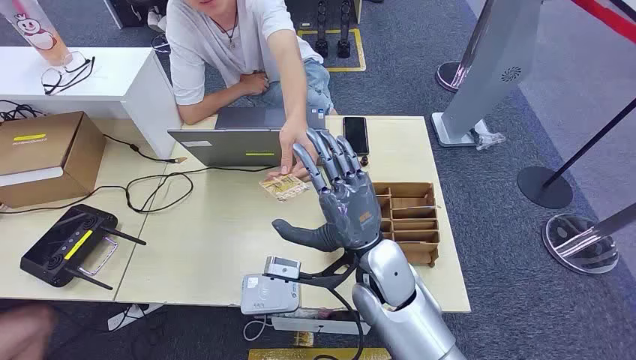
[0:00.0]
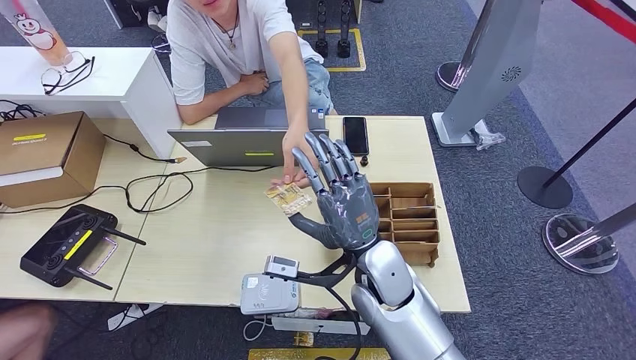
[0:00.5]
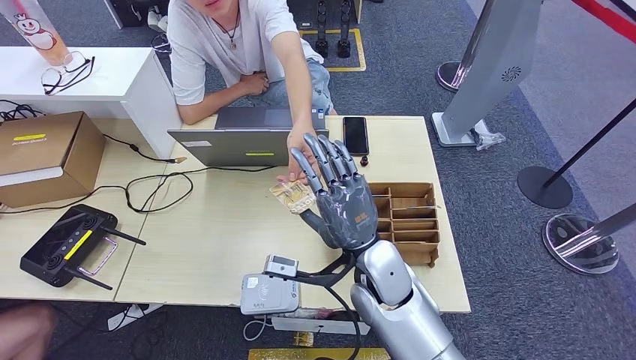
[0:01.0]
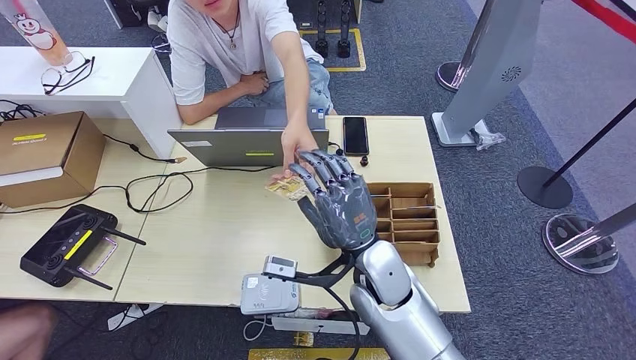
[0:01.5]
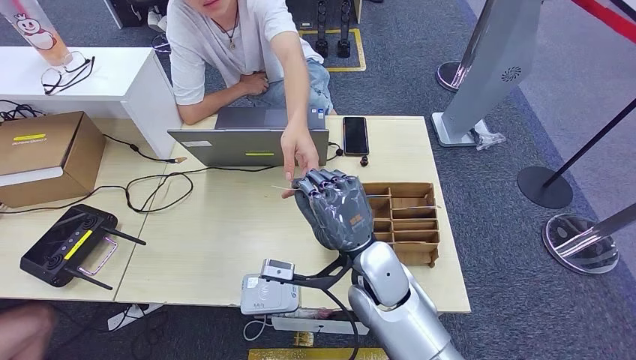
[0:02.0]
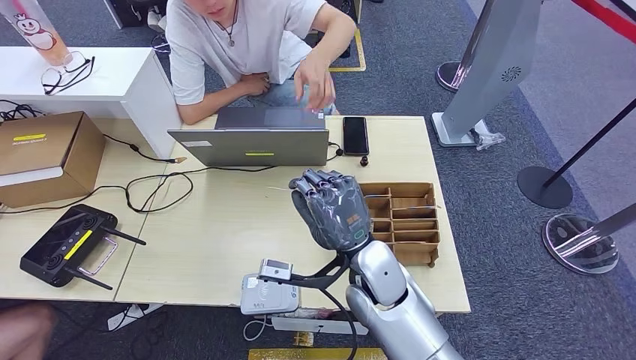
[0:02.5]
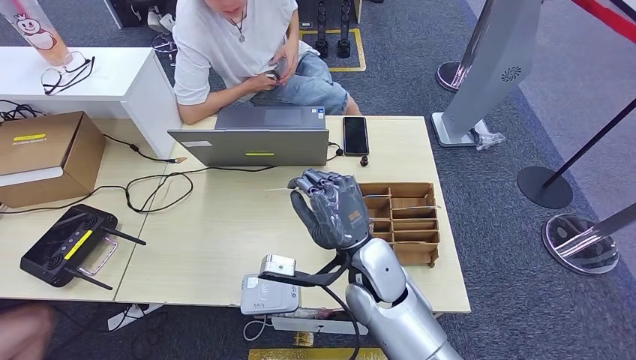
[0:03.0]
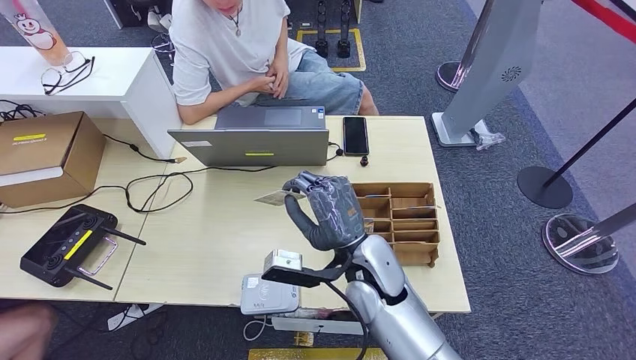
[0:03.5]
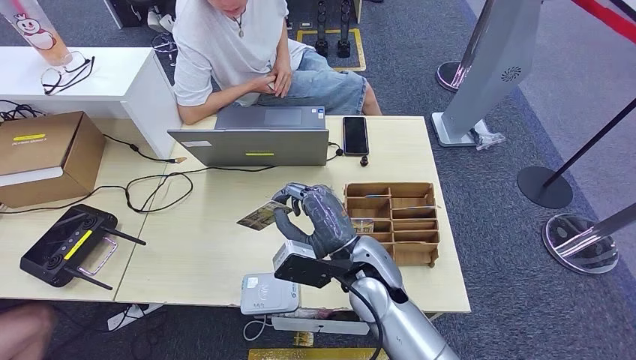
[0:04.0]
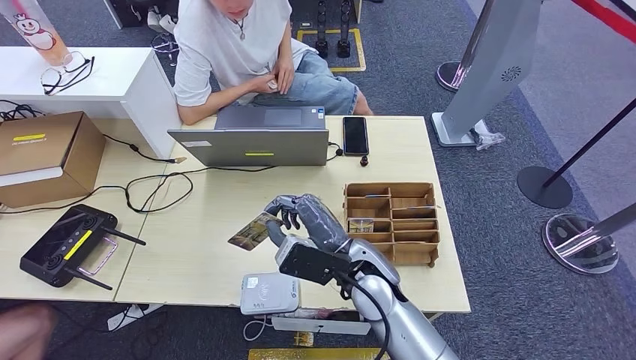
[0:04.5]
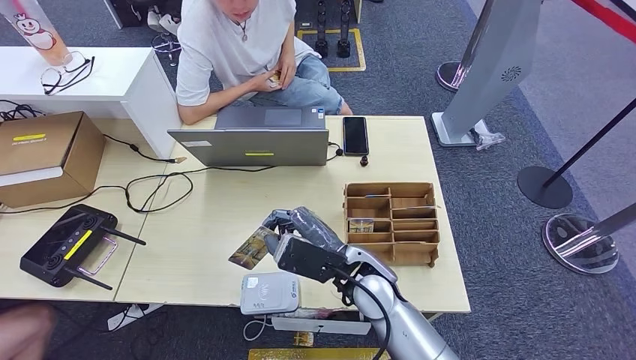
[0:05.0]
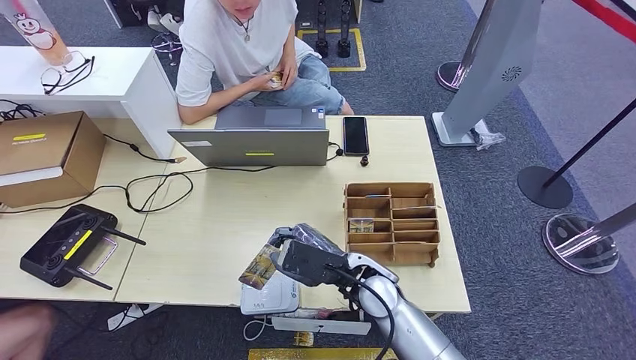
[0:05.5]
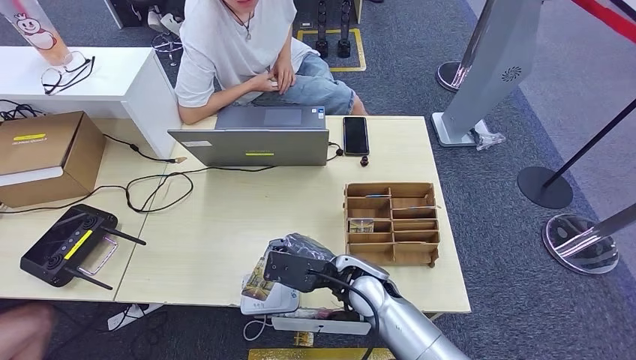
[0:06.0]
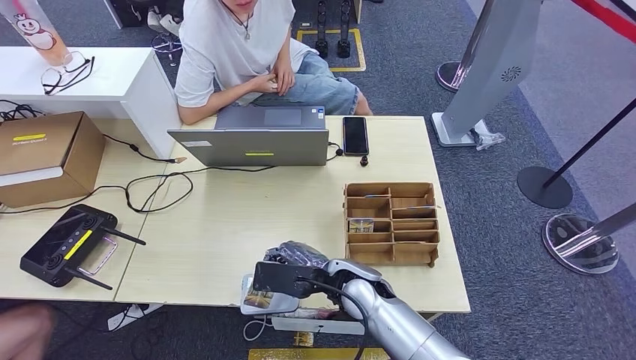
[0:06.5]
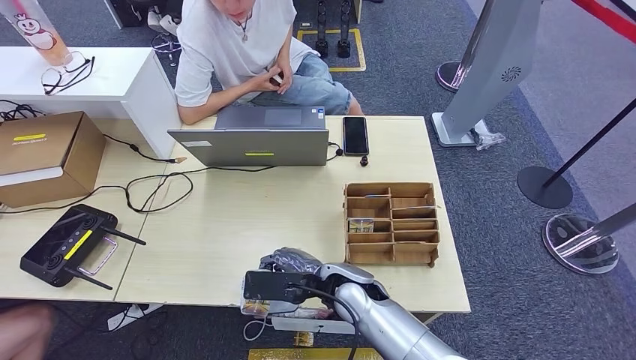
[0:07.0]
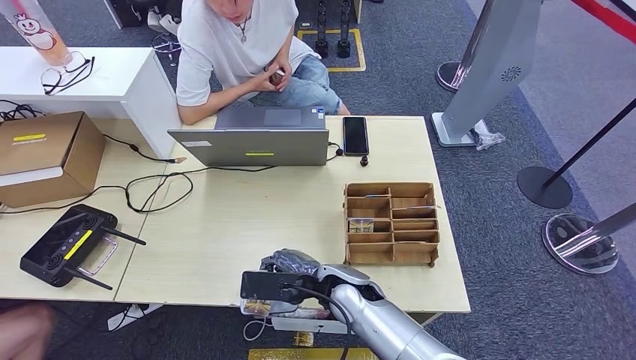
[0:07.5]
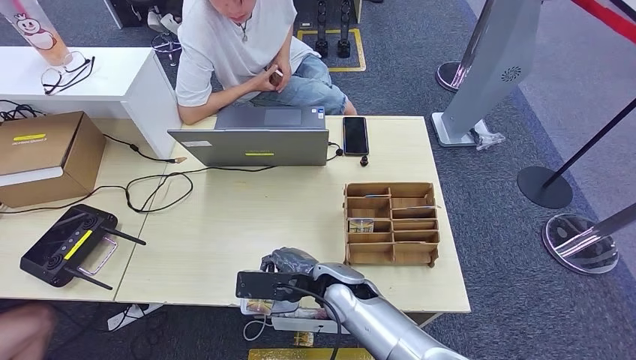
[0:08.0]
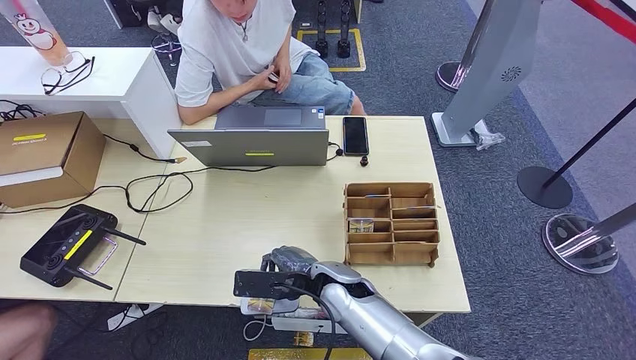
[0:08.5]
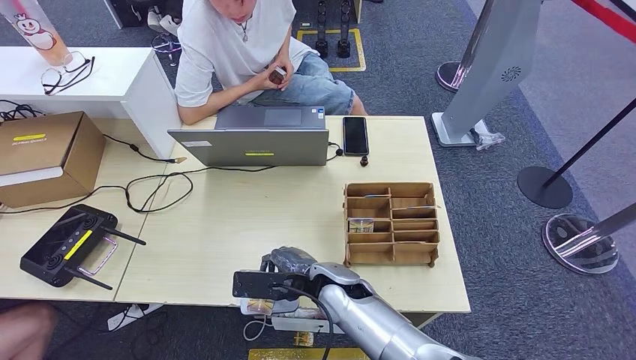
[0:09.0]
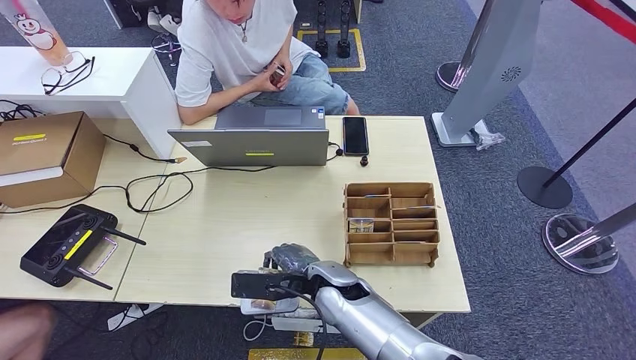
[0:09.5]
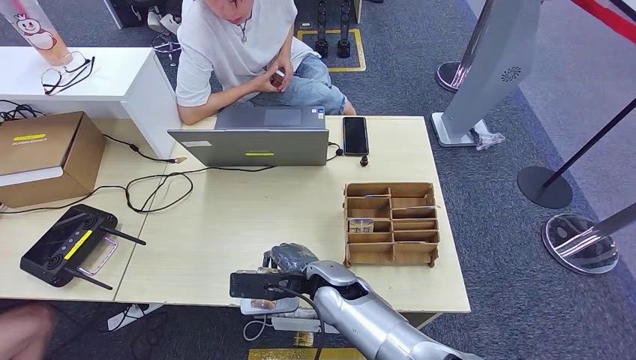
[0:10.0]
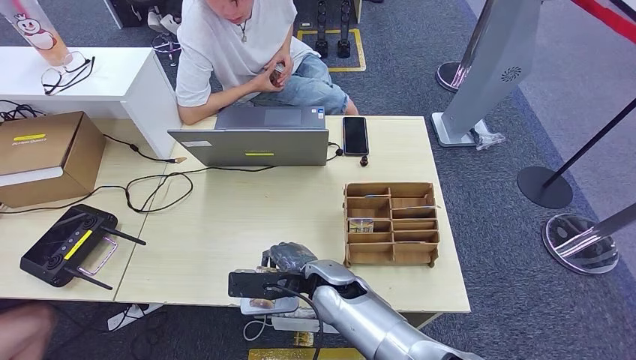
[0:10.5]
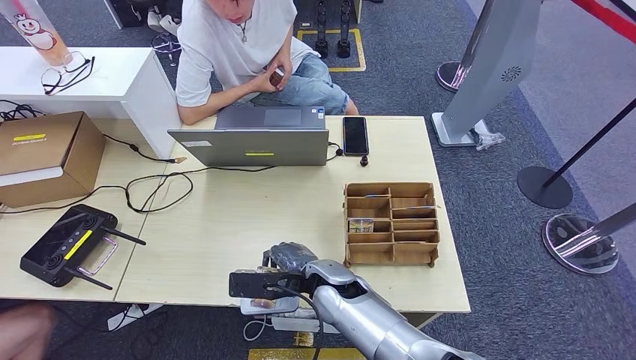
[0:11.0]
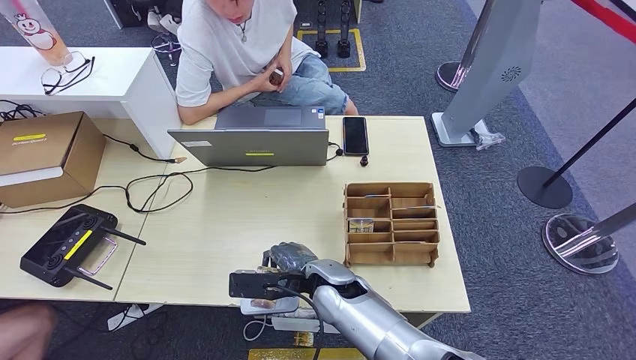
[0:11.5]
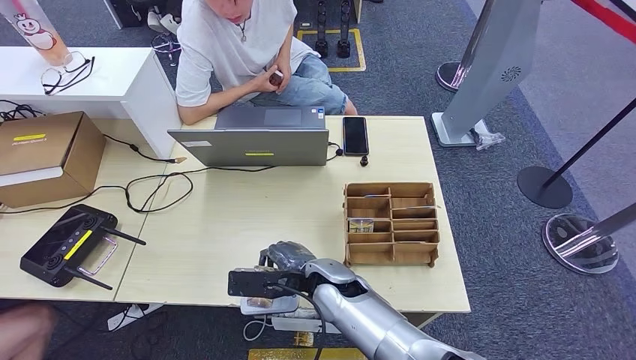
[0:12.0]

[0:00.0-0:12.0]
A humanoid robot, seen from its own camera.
Step, 0:00.0 to 0:02.5: Take the ID card from the person's hand.
Step, 0:03.0 to 0:09.0: Place the ID card on the card reader.
0:04.0 to 0:06.0: The right hand is displaced downward by some 5 cm.
0:06.0 to 0:08.0: The hands move only a little.
0:08.0 to 0:10.0: The hands move only a little.
0:10.0 to 0:12.0: Neither hand changes place.

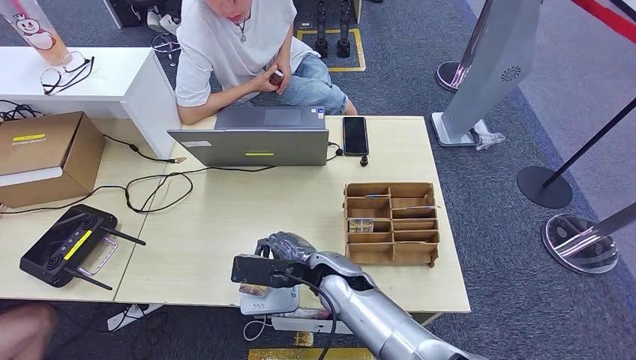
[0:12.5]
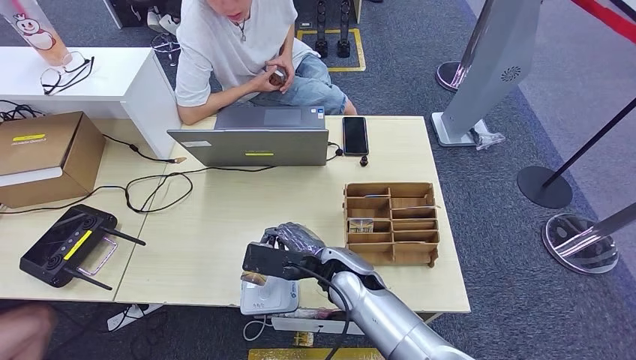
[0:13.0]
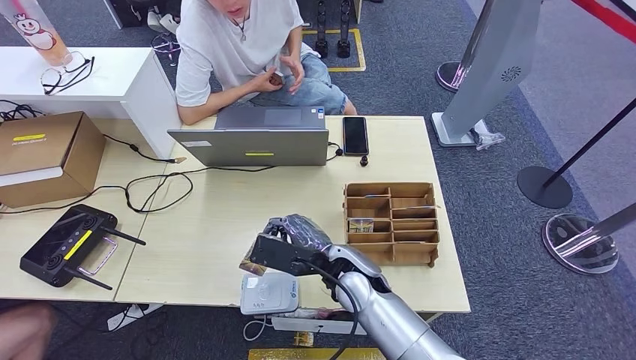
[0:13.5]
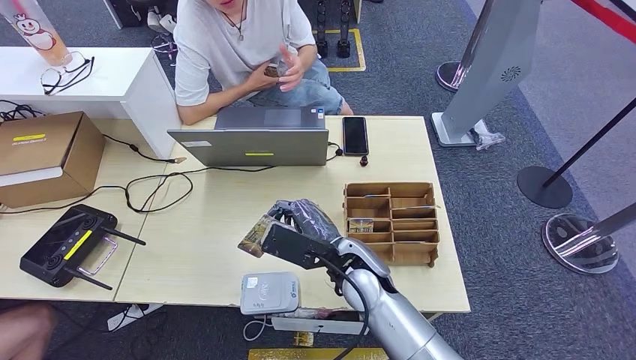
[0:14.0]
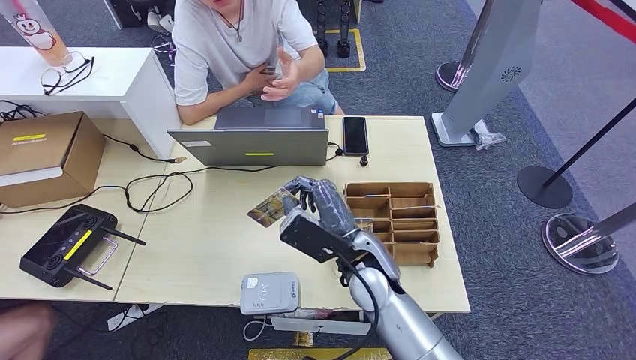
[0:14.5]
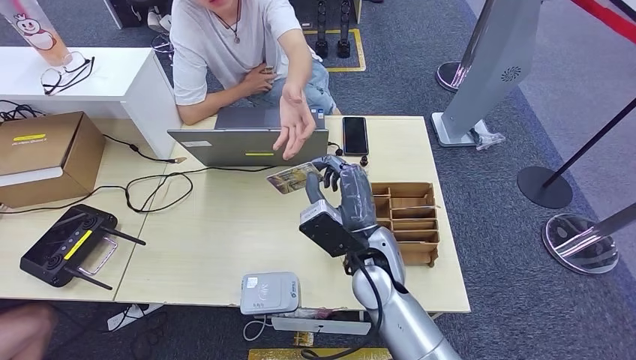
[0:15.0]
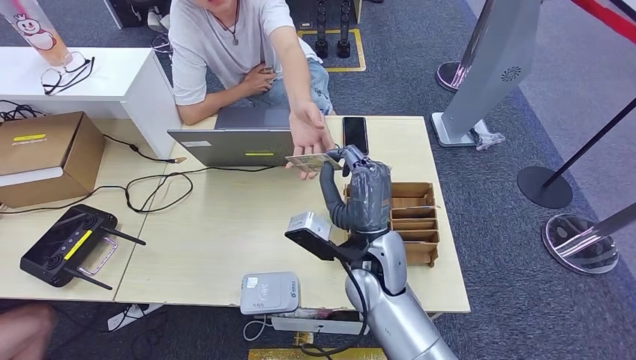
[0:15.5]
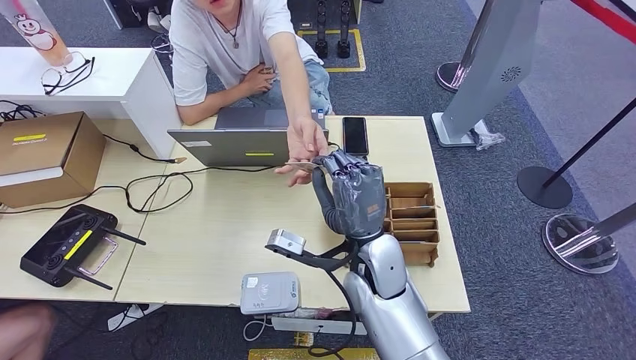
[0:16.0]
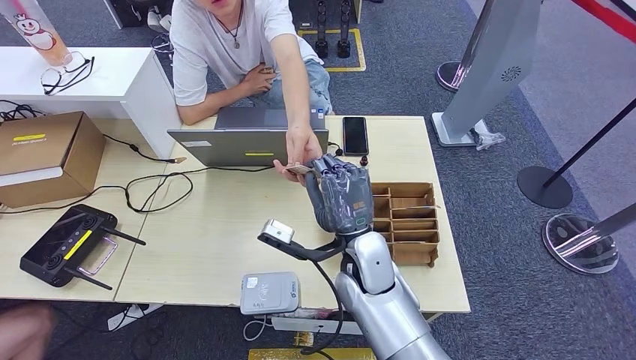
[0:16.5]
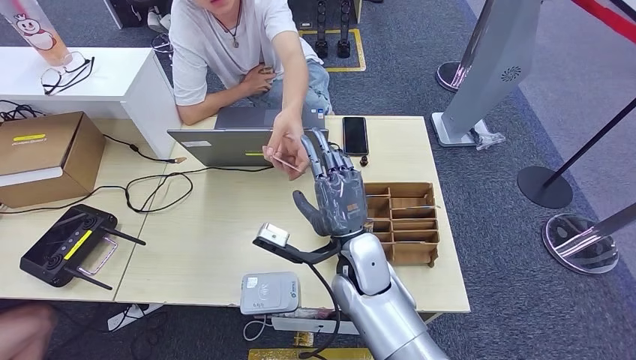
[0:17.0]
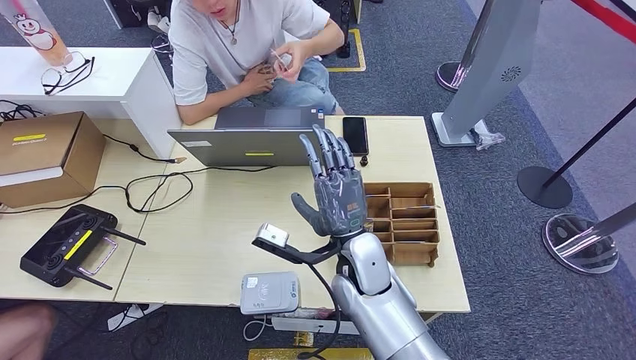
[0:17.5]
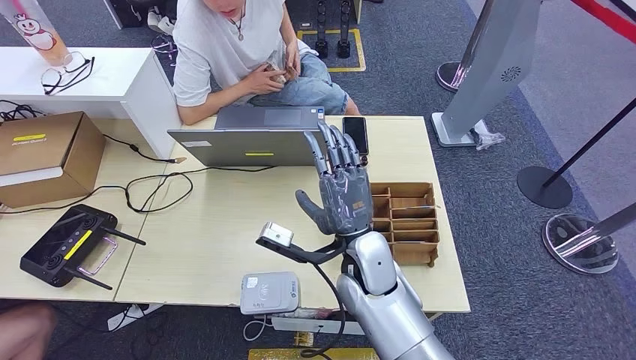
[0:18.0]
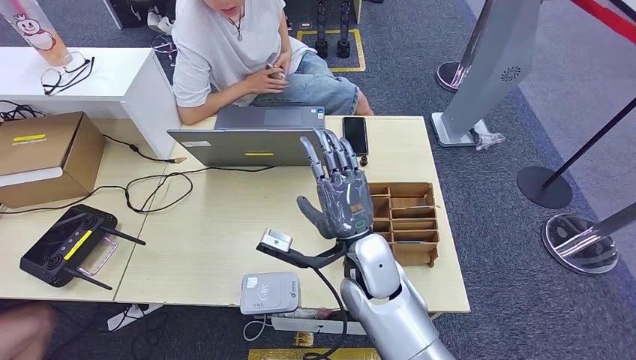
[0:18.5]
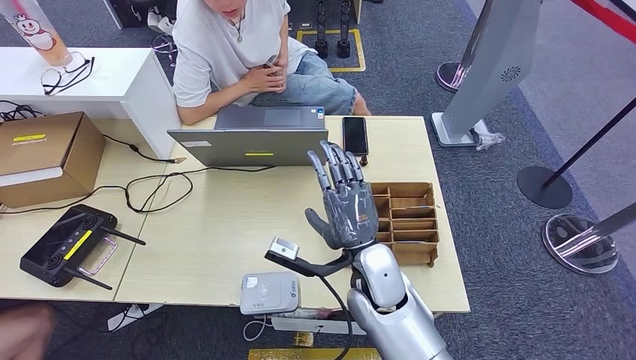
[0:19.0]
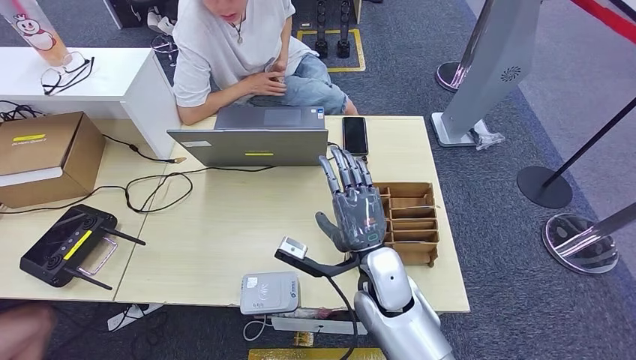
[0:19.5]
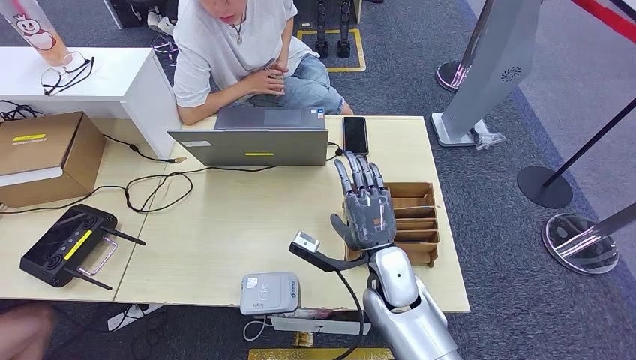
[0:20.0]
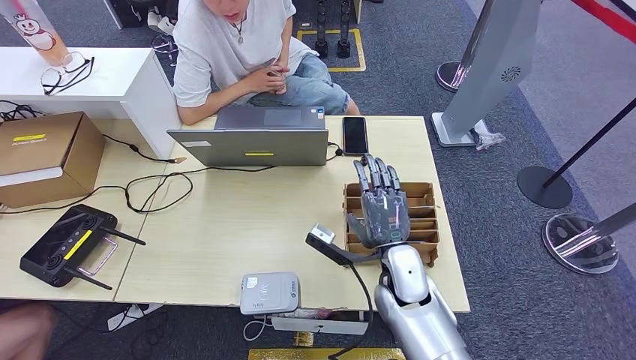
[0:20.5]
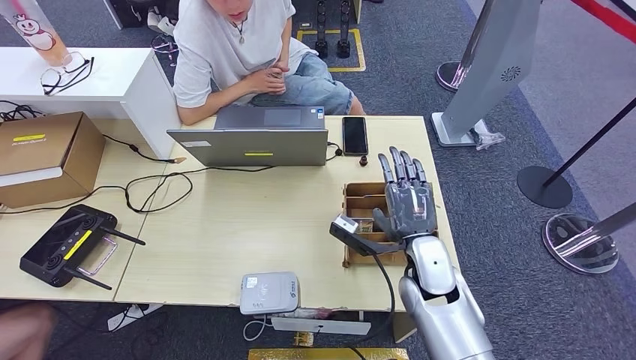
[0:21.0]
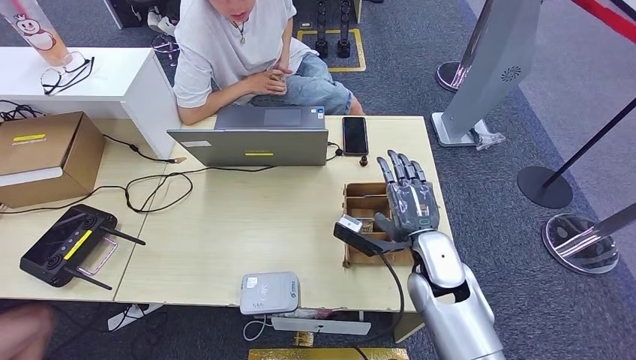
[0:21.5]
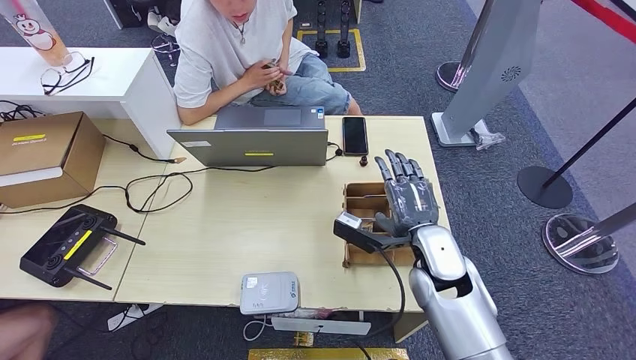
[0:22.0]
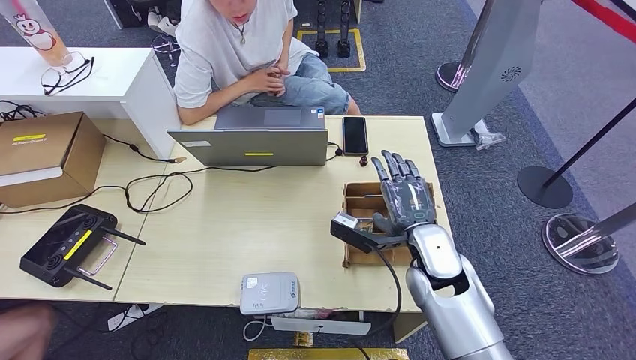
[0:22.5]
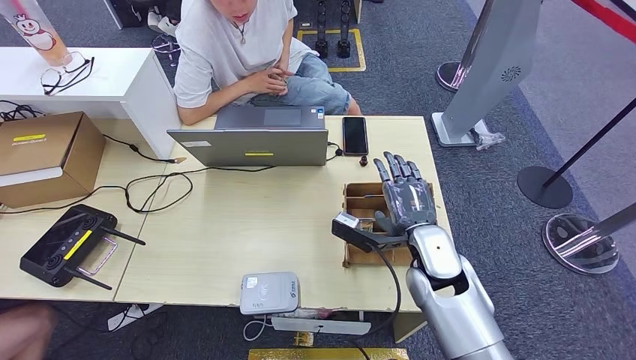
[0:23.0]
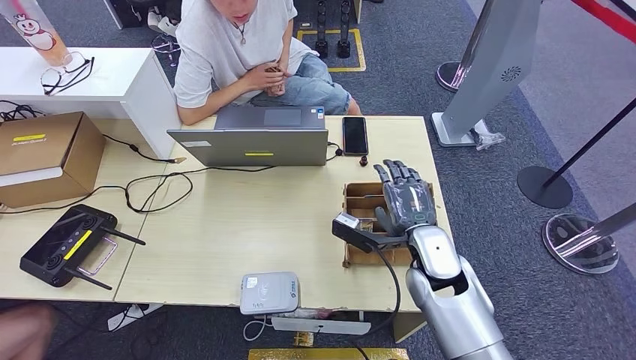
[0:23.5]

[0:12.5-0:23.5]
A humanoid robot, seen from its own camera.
Step, 0:12.5 to 0:17.0: Hand the ID card to the person.
0:12.5 to 0:14.5: The right hand moves upward, approximately 5 cm.
0:16.0 to 0:18.0: The hands make only small movements.
0:18.0 to 0:20.0: The right hand moves about 5 cm.
0:20.0 to 0:21.5: The right hand travels to the right by about 5 cm.
0:21.5 to 0:23.5: There are only small adjustments of the hands.
